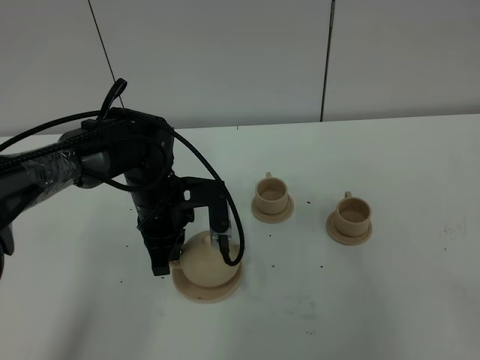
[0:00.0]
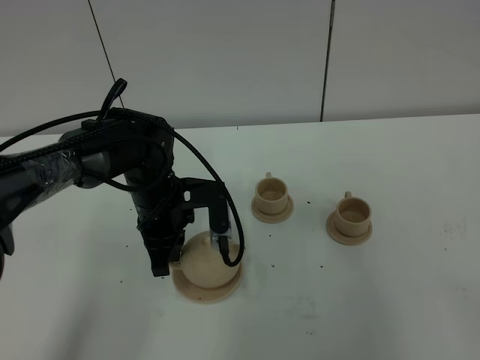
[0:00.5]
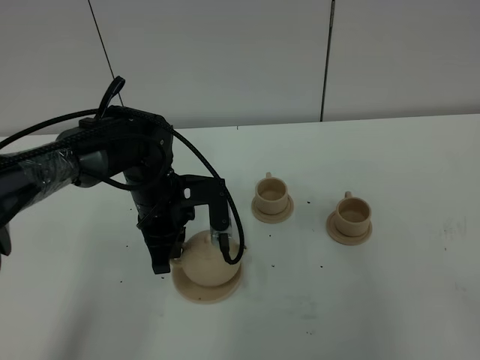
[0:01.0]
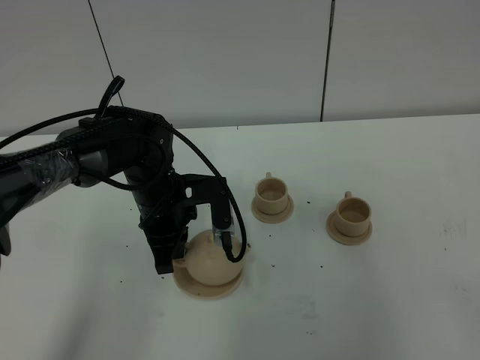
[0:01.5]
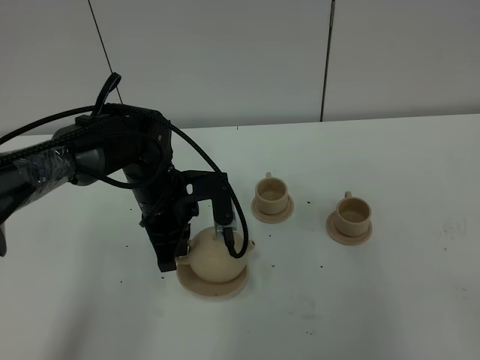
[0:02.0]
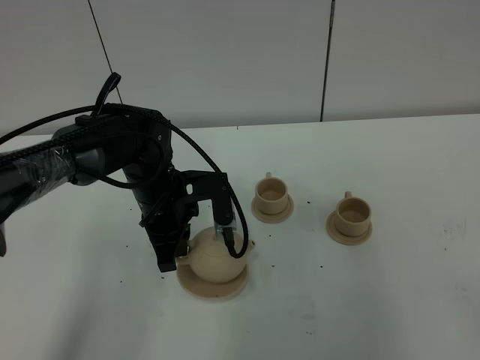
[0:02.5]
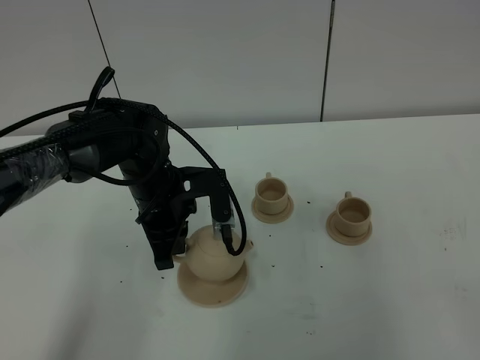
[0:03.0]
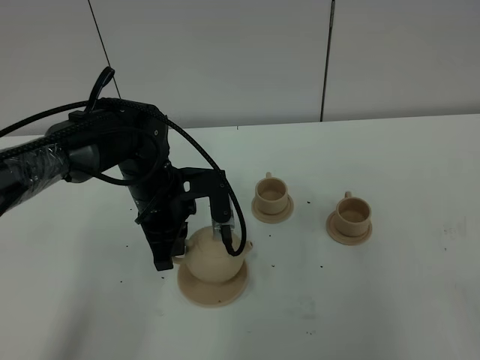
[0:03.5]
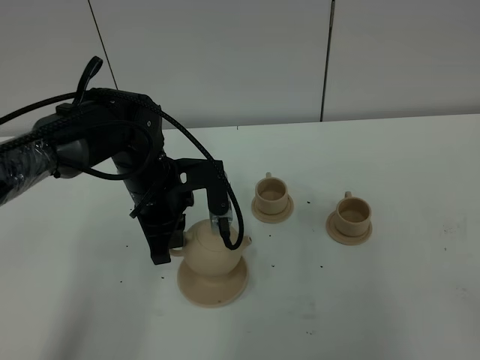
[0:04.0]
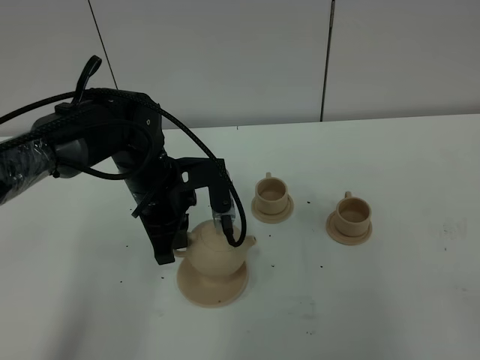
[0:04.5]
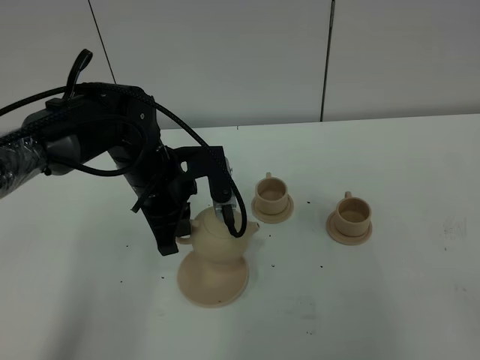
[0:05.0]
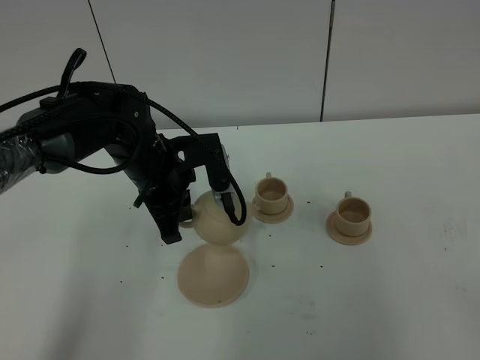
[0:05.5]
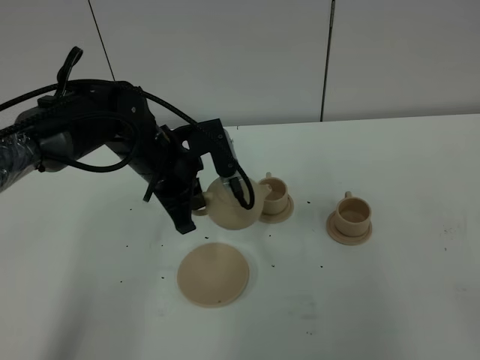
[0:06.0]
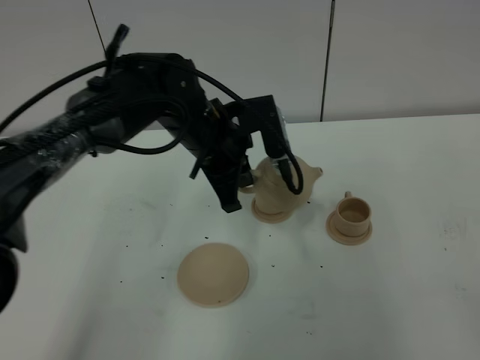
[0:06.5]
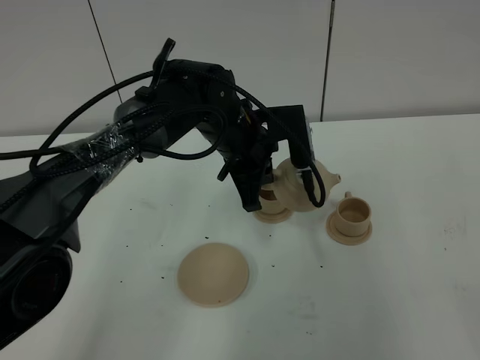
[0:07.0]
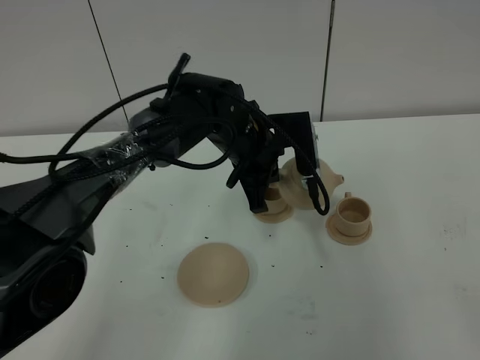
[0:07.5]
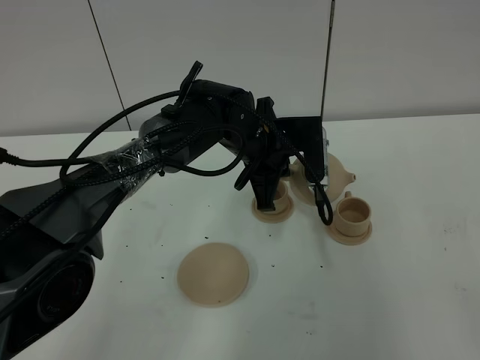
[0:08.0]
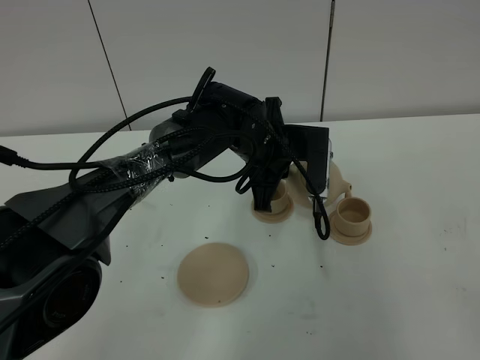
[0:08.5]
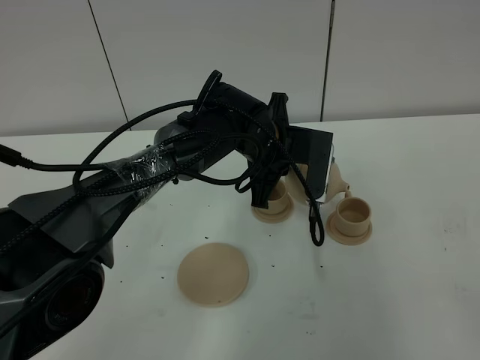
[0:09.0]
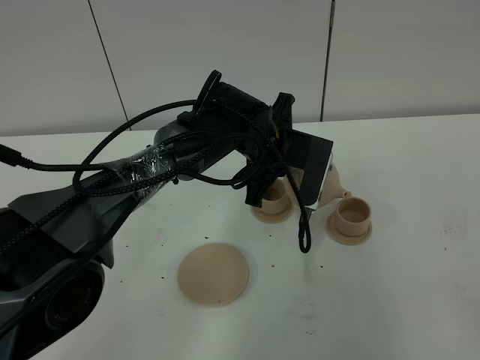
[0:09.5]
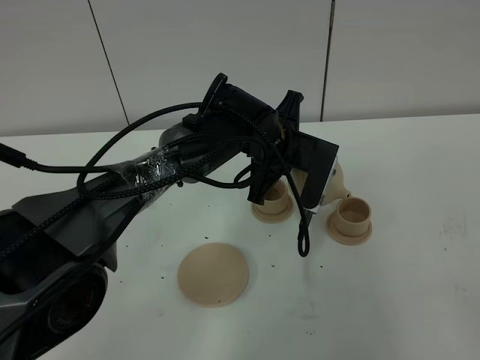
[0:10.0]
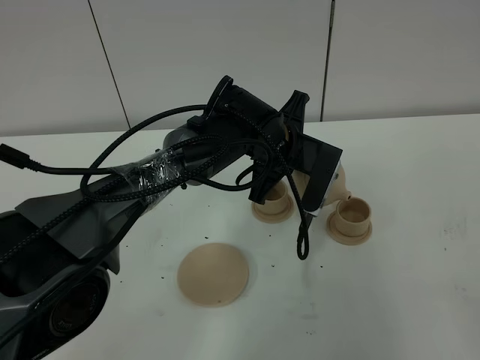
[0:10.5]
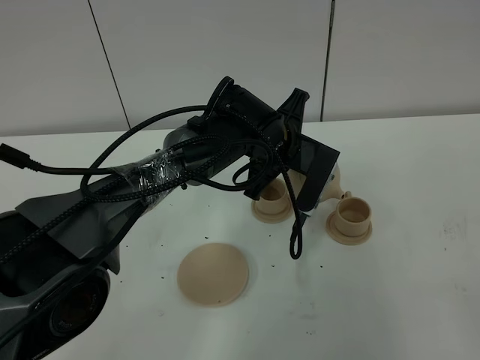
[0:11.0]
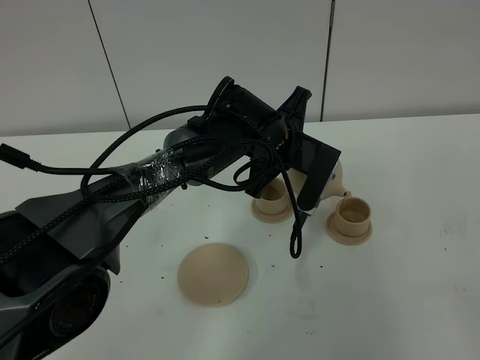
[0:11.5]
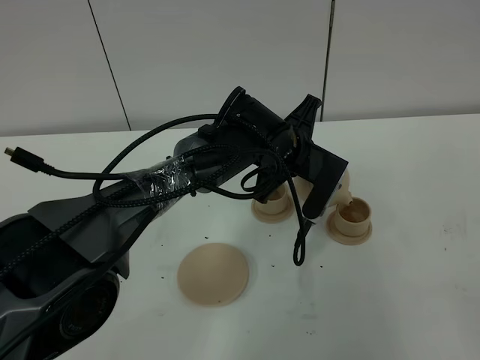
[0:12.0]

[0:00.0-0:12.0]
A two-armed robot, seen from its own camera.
Task of the whole recording: grasp the brown teapot and pour the tea into the two brown teacups one by one, put the brown teapot back in its original place.
Step, 0:00.0 to 0:03.0: Pick up the teapot with the left gripper.
0:00.0 to 0:02.0: Both grippers stay put.
0:02.0 to 0:06.0: The grippers move only a little.
0:06.0 to 0:08.0: The left gripper is displaced to the right by about 10 cm.
0:10.0 to 0:12.0: There are only small adjustments of the grippers.

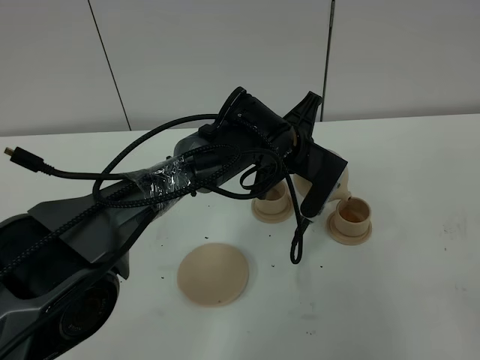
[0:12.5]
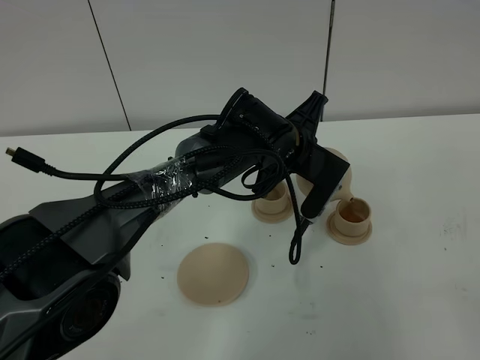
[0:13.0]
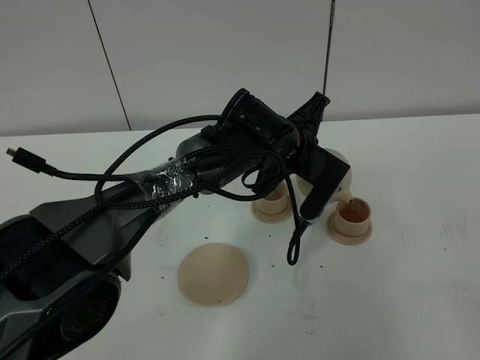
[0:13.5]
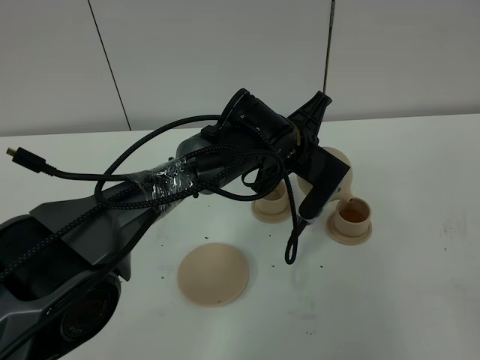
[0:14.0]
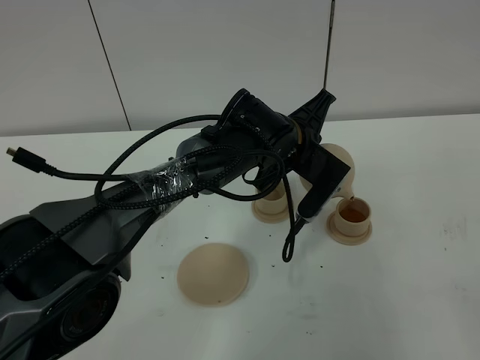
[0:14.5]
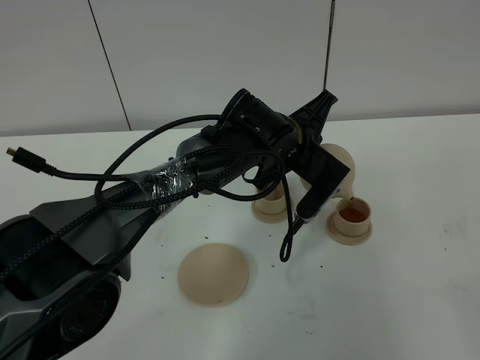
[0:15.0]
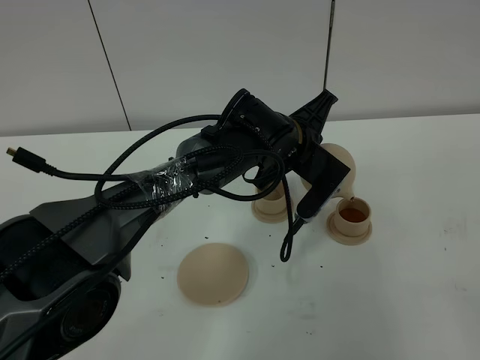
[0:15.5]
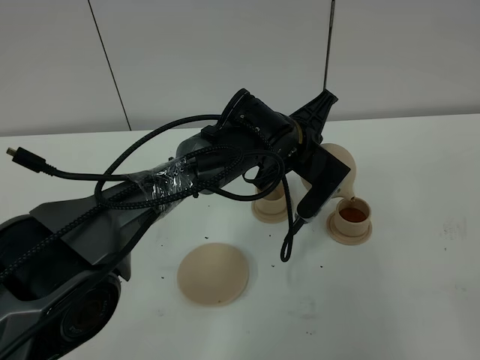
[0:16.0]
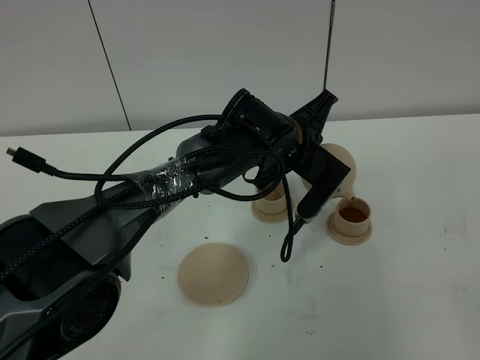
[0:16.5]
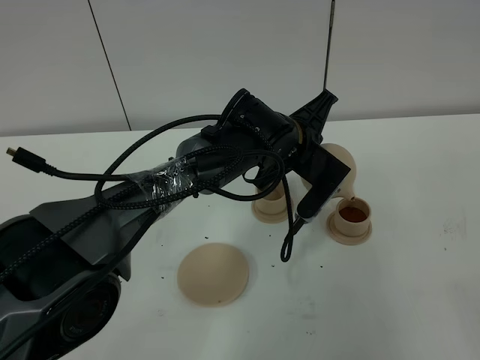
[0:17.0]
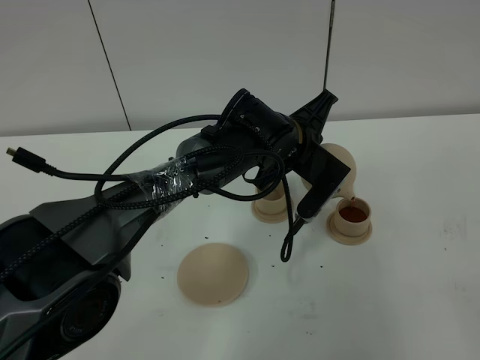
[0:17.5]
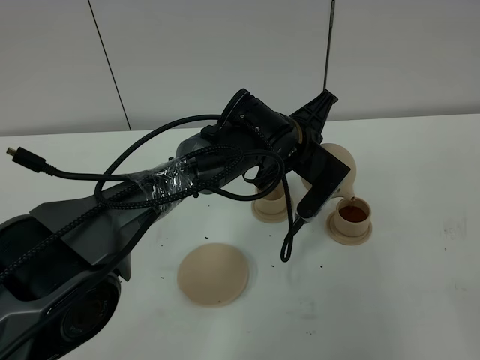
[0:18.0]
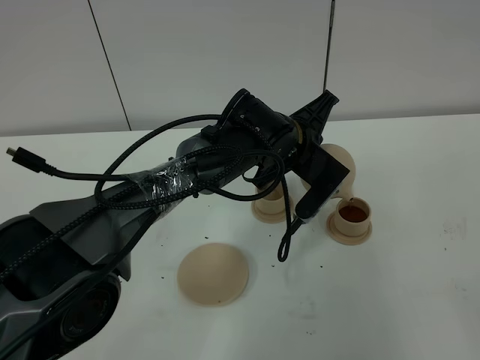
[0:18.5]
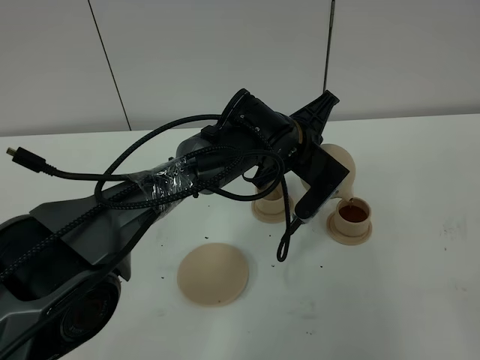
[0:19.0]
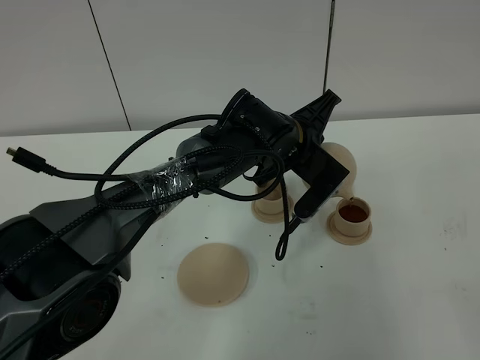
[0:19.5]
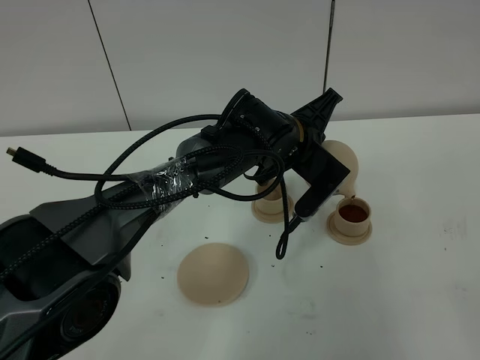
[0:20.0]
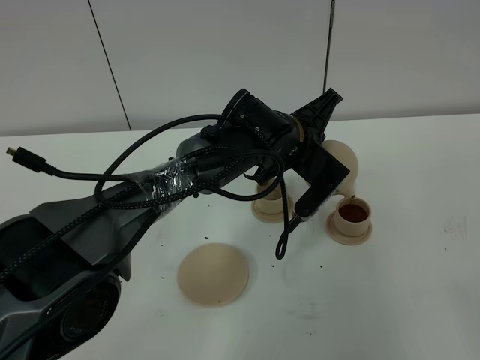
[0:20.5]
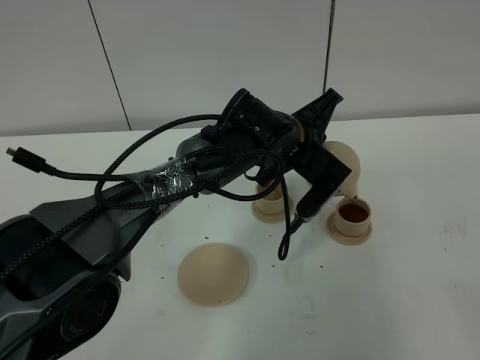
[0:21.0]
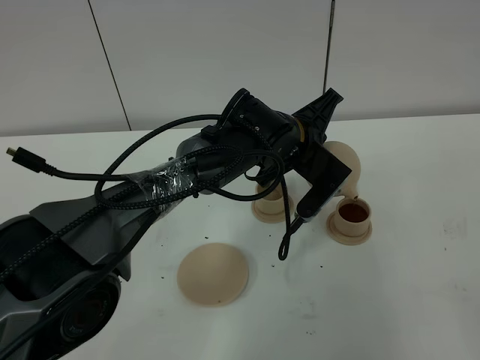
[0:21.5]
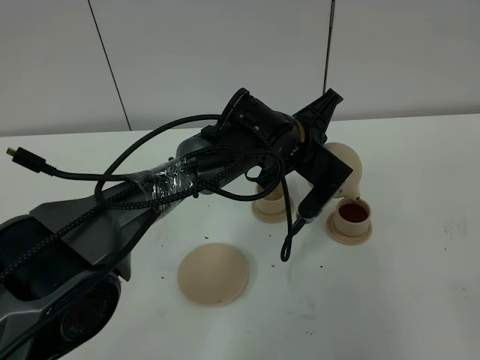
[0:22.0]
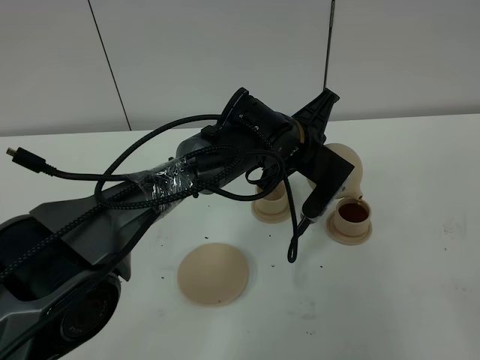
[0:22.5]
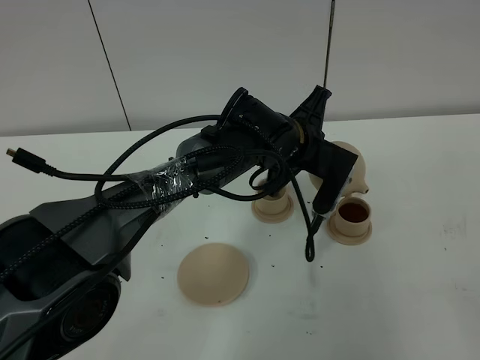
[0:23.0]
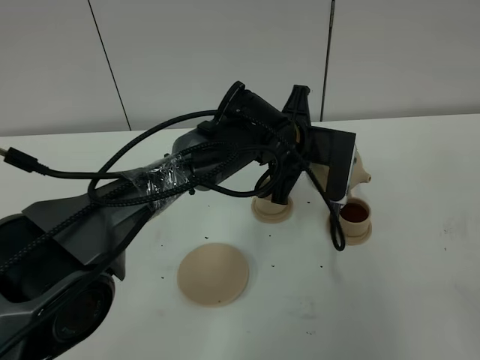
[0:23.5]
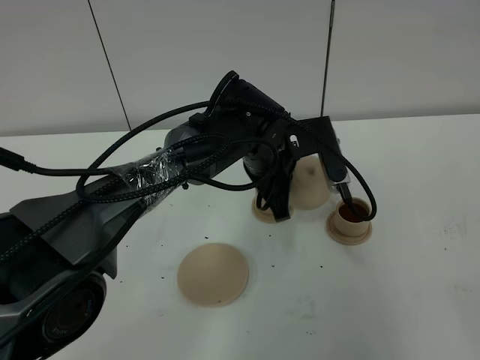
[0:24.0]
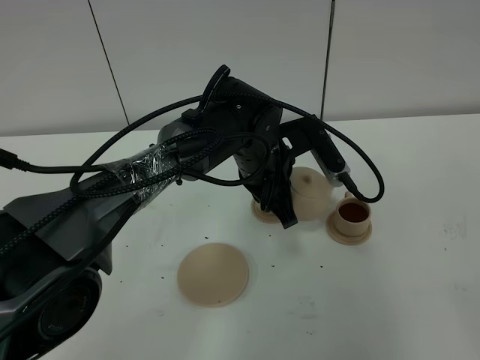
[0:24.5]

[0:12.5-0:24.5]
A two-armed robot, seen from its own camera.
Task of the whole recording: grasp the brown teapot and pour the tea into the two brown teacups one by one, put the brown teapot back in its original place.
Step, 0:12.5 to 0:22.5: Pour tea into the teacup with the left gripper.
0:12.5 to 0:14.5: The grippers stay close to where they were, moving slightly.
0:14.5 to 0:18.5: Both grippers stay about where they are.
0:18.5 to 0:20.5: The two grippers keep their place.
0:20.5 to 0:22.5: The grippers move only a little.

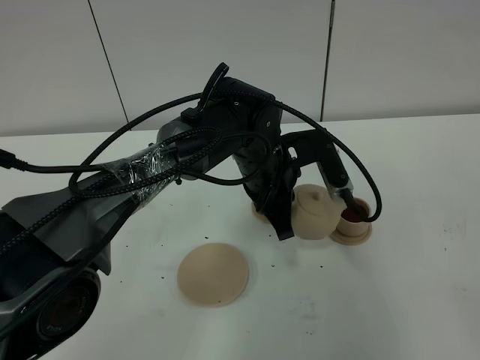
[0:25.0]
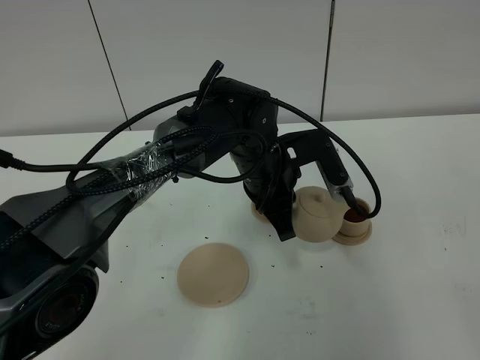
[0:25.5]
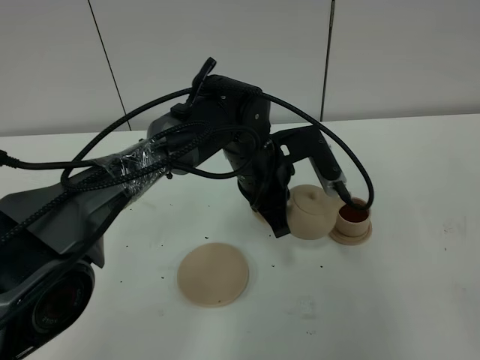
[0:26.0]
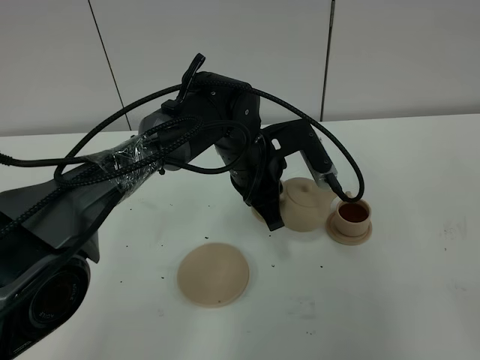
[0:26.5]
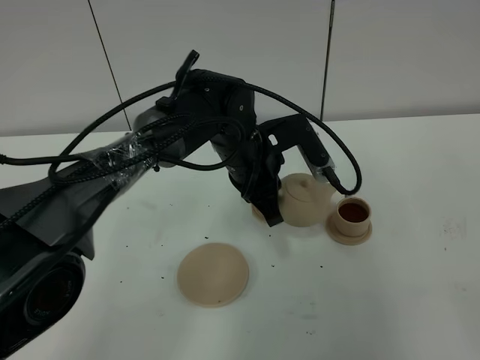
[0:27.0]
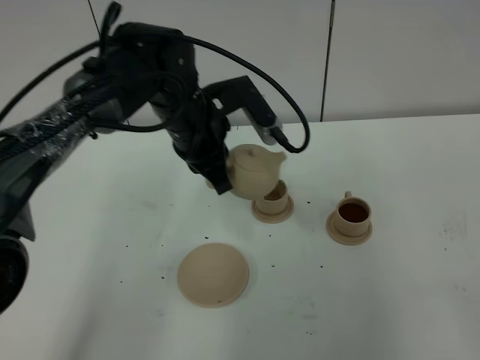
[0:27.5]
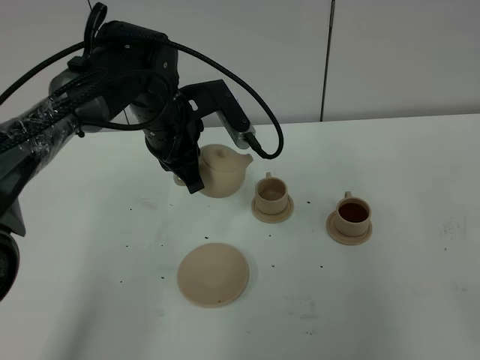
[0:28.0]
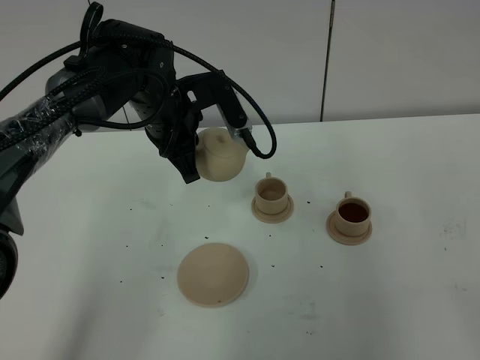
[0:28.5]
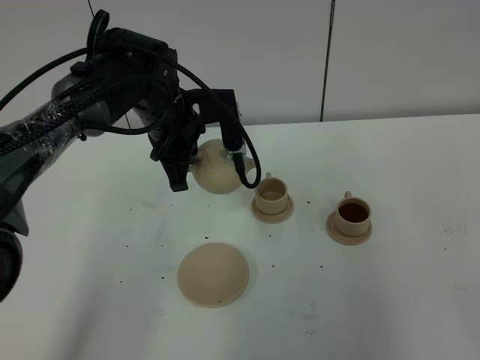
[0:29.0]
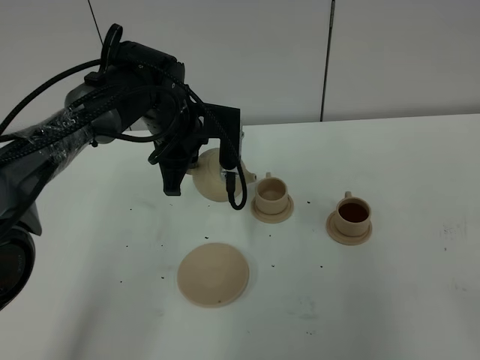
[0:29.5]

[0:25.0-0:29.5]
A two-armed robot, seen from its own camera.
Task of the whole recording: grasp the brown teapot and pour the tea into the two brown teacups one by one, put the brown teapot back in its original place.
0:25.0 to 0:27.0: There are only small adjustments of the grippers.
0:27.0 to 0:29.5: The left gripper goes approximately 10 cm to the left.
